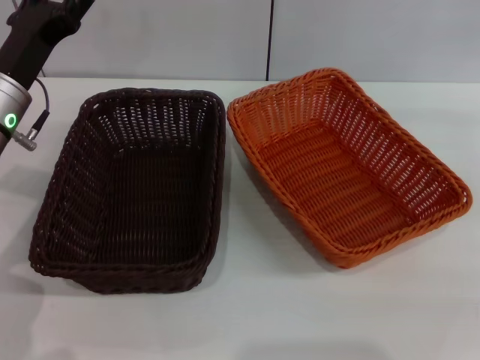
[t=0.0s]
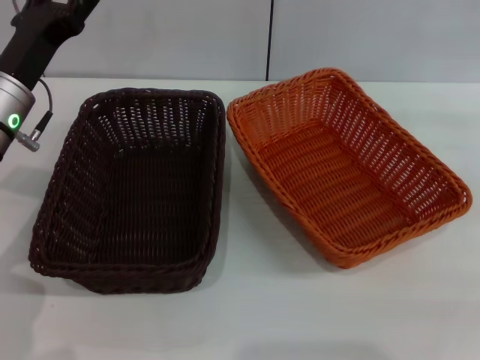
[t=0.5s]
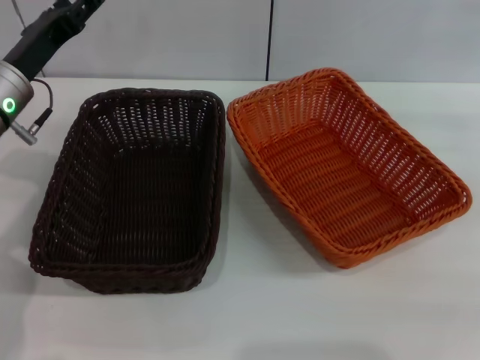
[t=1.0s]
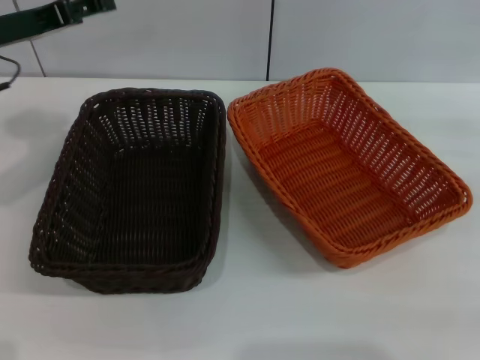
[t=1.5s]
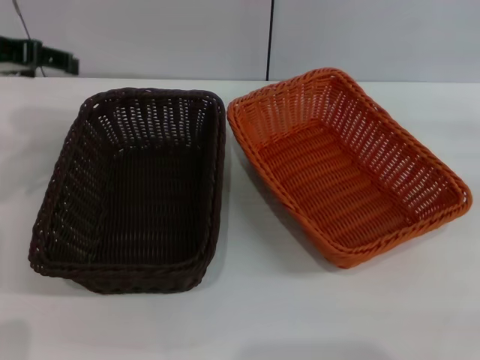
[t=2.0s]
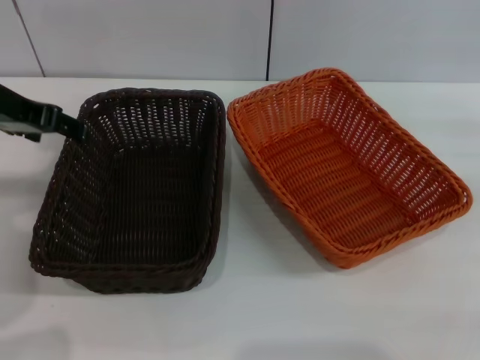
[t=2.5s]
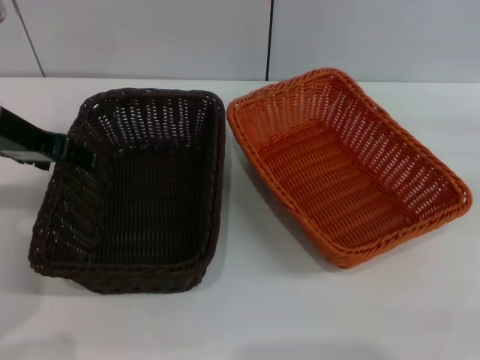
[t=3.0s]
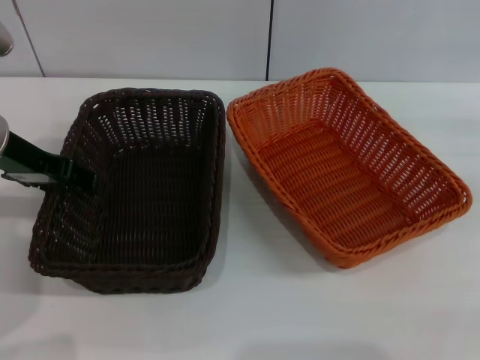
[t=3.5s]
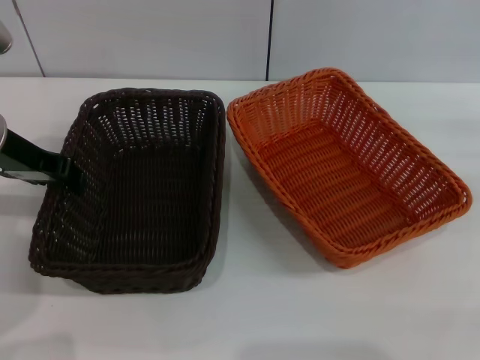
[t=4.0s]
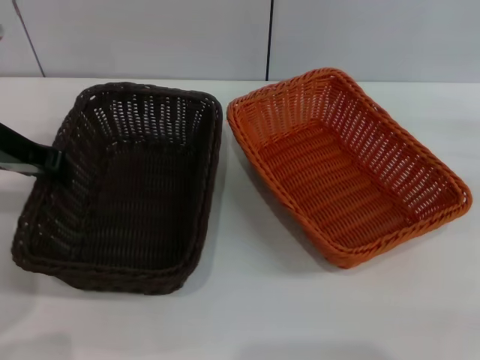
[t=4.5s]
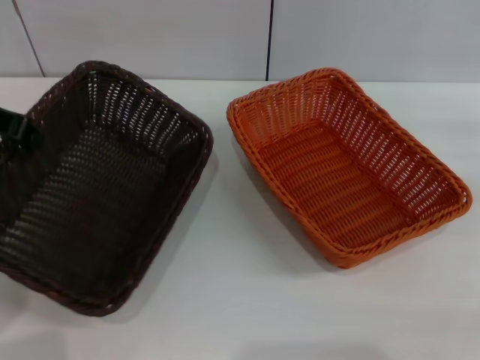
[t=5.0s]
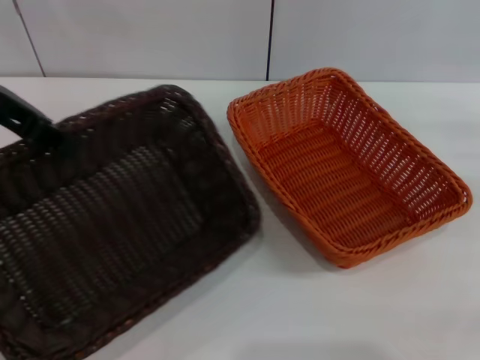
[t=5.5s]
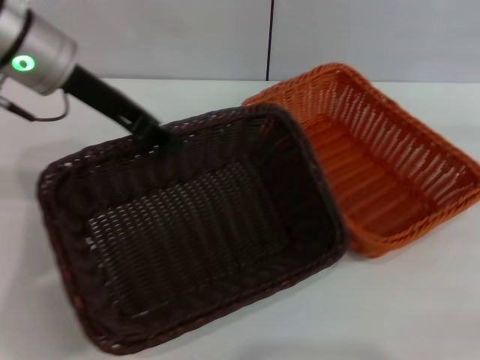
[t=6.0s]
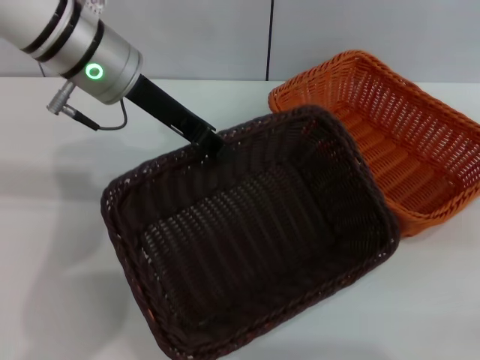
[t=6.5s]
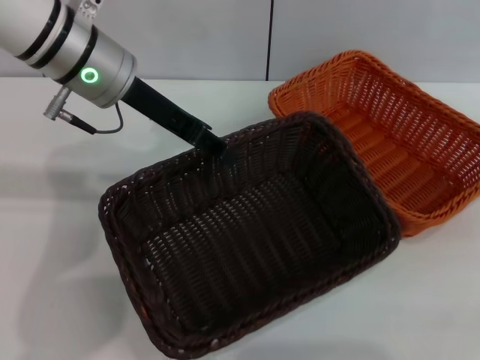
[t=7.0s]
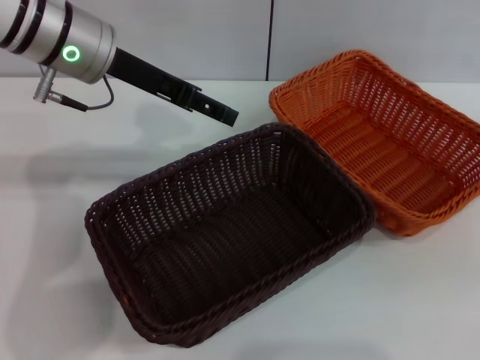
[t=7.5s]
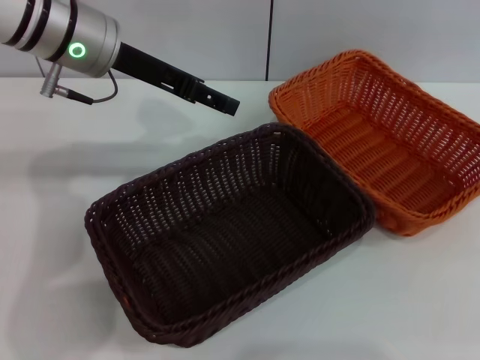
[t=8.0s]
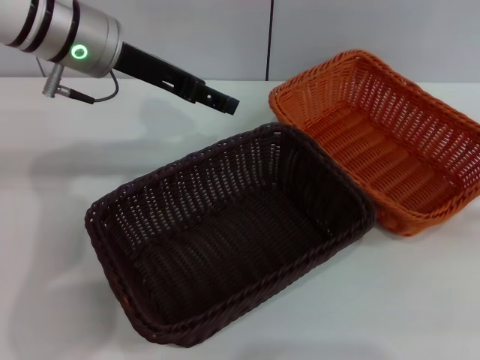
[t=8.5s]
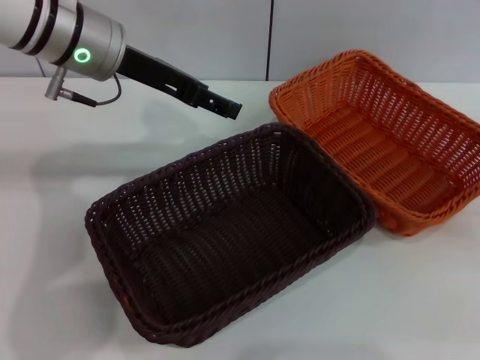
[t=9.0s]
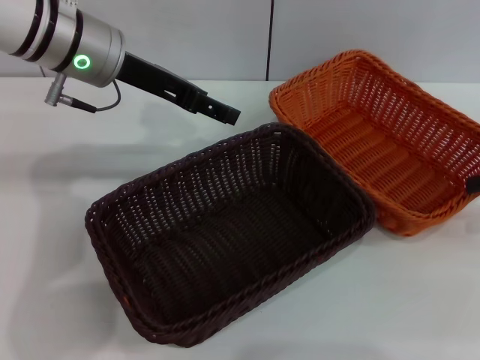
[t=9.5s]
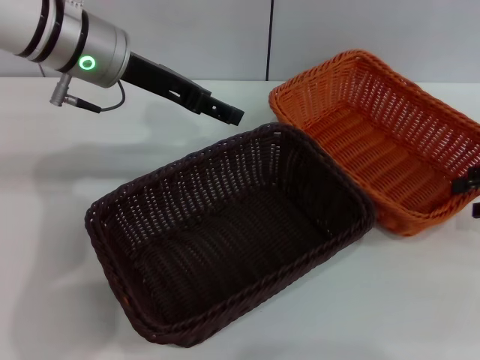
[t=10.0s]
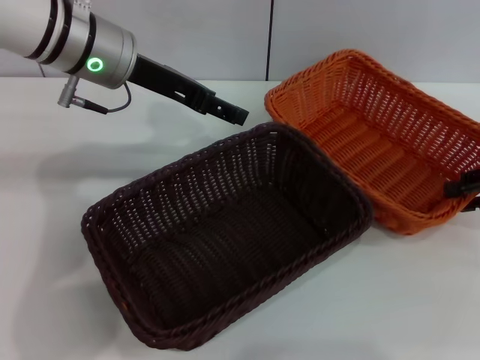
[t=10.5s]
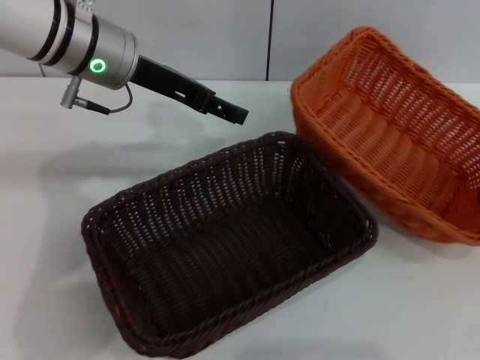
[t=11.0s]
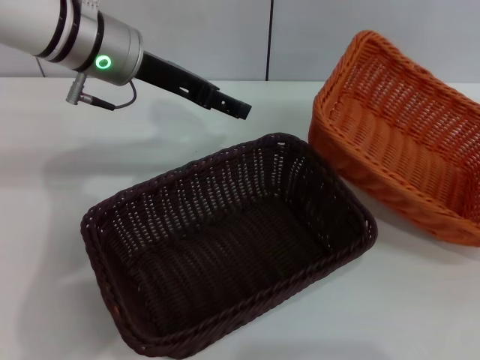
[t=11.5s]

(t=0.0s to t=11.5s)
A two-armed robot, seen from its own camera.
Step, t=0.0s - t=4.5s: Pick up the dark basket with the left gripper.
Step, t=5.0s - t=7.0s: Place the dark basket in the center of view with the left gripper.
Step, t=7.5s - t=10.5s: Pick up the light basket with the right gripper.
t=0.0s - t=2.0s: The left gripper travels upward and to the left by approximately 15 cm.
t=2.0s - t=4.0s: The left gripper travels downward by roughly 5 cm, and closes up.
t=4.0s - t=6.0s: The left gripper moves to the right and upward, about 10 cm, and closes its fingers.
t=6.0s - t=7.5s: The left gripper opens up, while the right gripper shifts roughly 5 cm upward.
t=9.5s - t=11.5s: The right gripper shifts some 5 cm downward, and closes.

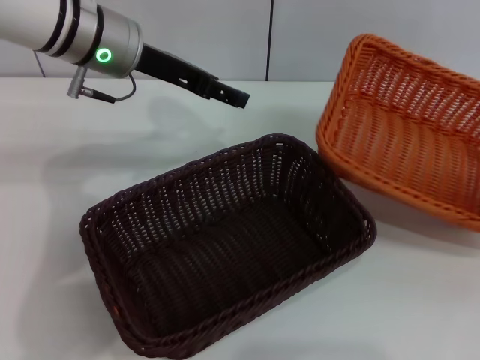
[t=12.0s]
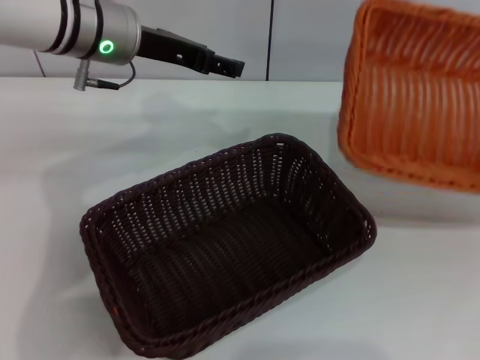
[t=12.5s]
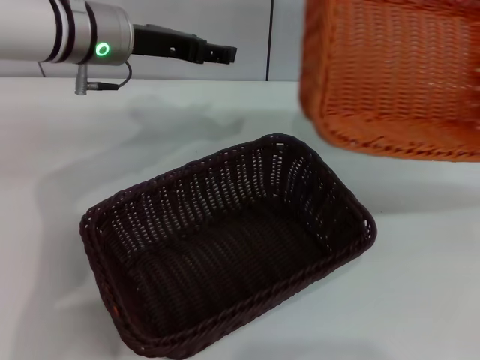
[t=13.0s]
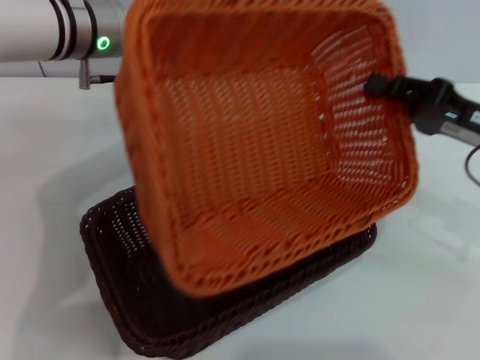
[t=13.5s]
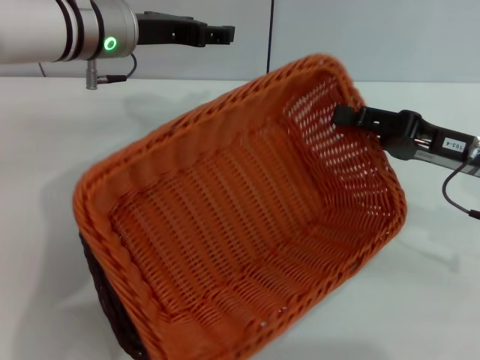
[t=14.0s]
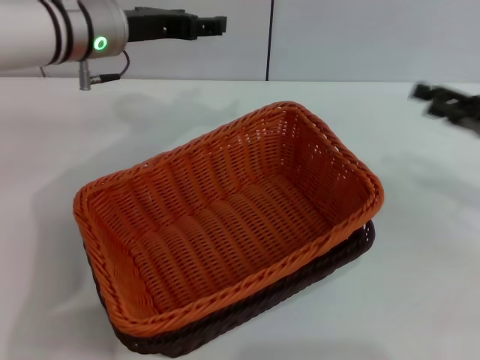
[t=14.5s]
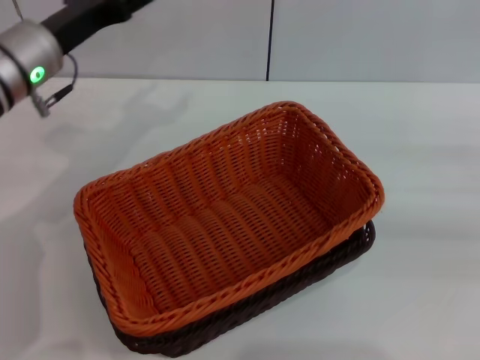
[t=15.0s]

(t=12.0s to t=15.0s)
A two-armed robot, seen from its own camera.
Step, t=12.0s - t=14.0s: Place the light basket on the dark basket with the right gripper.
t=12.0s - t=13.5s: The right gripper goes approximately 15 cm to the left.
t=13.5s - t=15.0s: The left gripper goes about 5 cm to the left. The right gripper travels to the right by roughly 15 cm, and opens its fingers.
